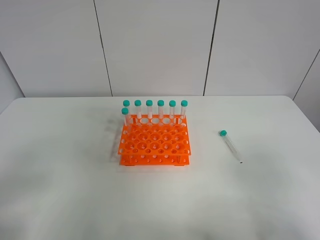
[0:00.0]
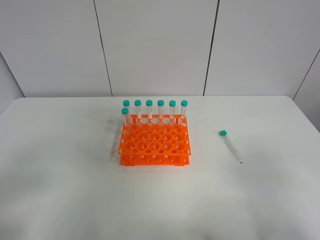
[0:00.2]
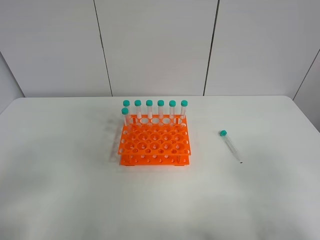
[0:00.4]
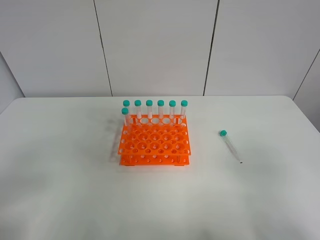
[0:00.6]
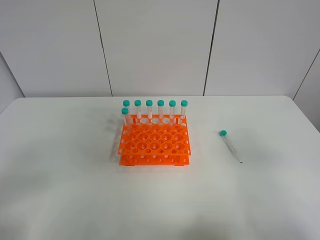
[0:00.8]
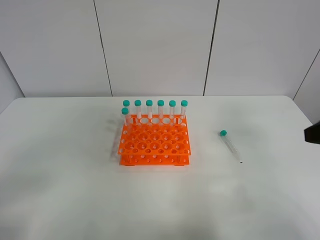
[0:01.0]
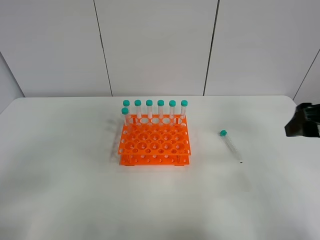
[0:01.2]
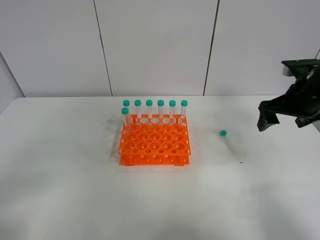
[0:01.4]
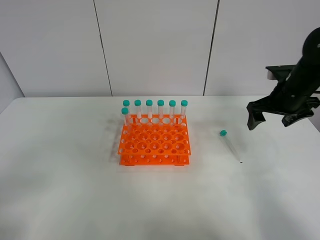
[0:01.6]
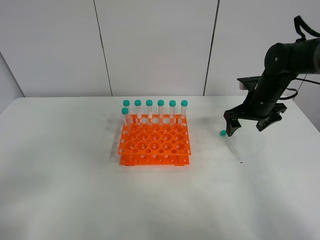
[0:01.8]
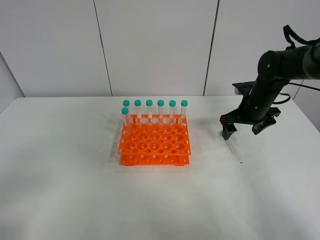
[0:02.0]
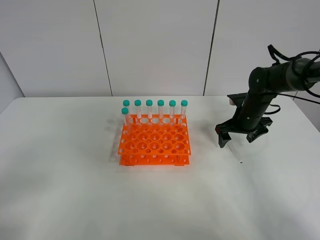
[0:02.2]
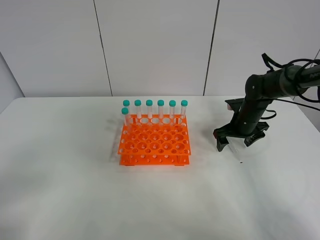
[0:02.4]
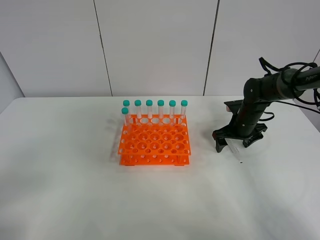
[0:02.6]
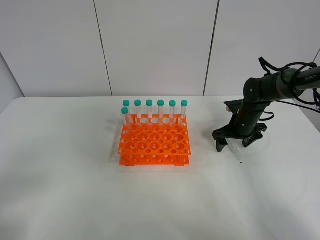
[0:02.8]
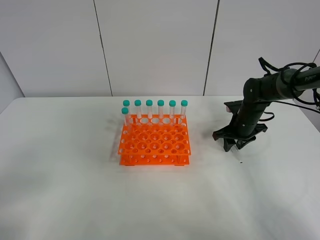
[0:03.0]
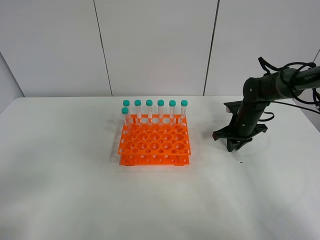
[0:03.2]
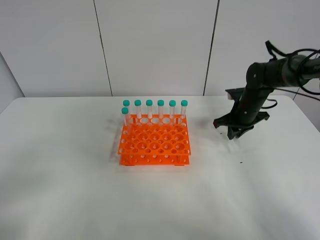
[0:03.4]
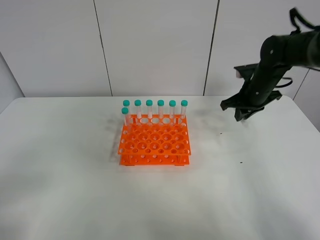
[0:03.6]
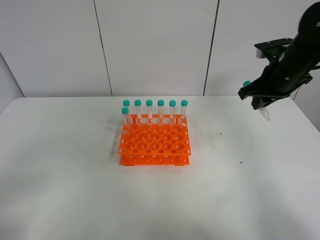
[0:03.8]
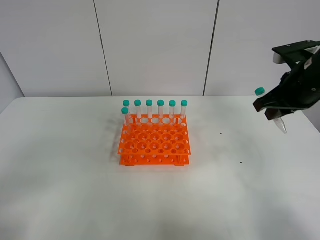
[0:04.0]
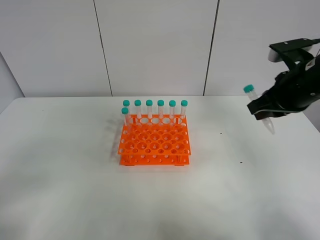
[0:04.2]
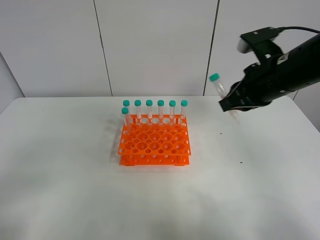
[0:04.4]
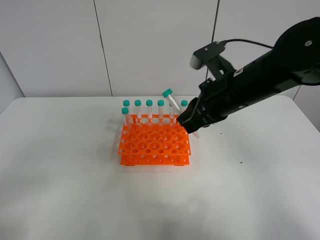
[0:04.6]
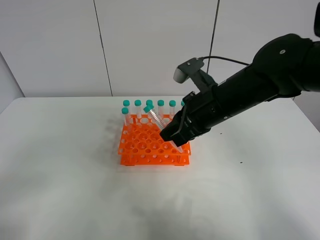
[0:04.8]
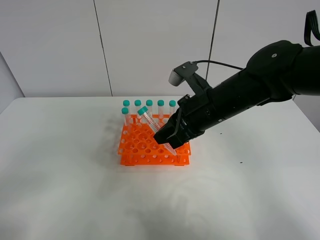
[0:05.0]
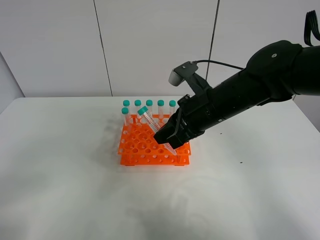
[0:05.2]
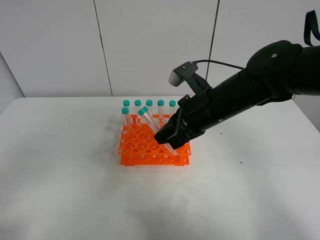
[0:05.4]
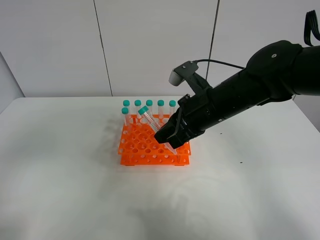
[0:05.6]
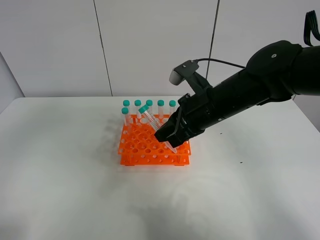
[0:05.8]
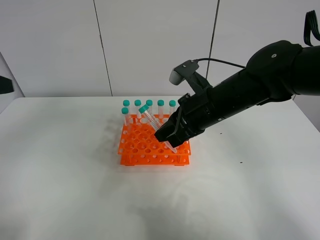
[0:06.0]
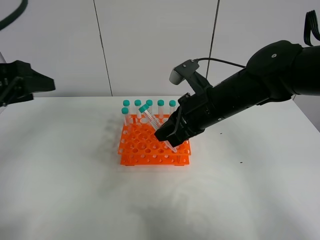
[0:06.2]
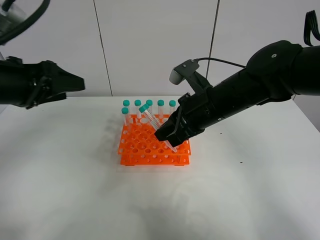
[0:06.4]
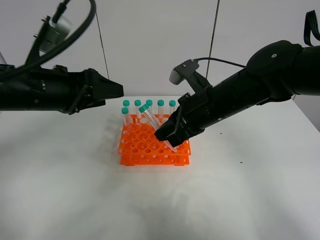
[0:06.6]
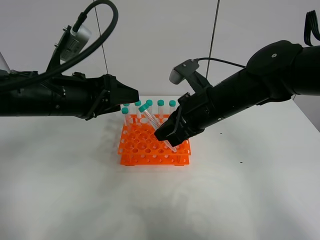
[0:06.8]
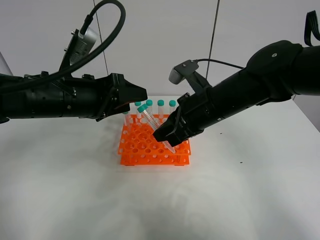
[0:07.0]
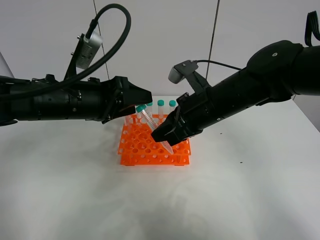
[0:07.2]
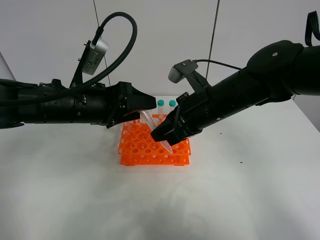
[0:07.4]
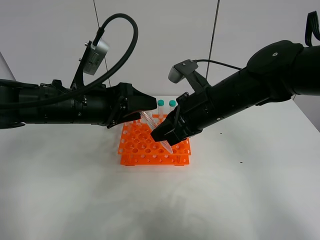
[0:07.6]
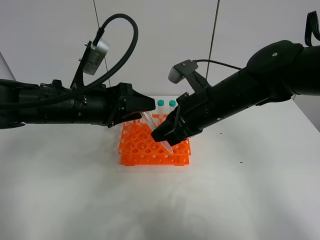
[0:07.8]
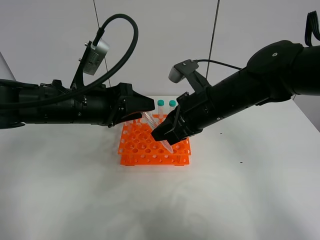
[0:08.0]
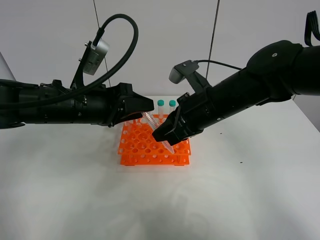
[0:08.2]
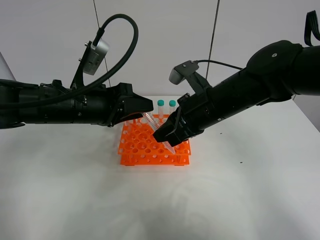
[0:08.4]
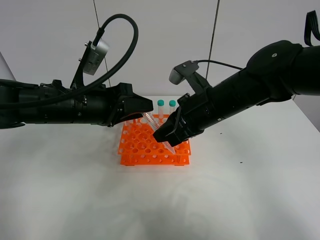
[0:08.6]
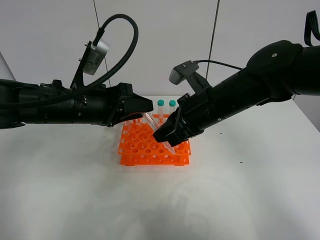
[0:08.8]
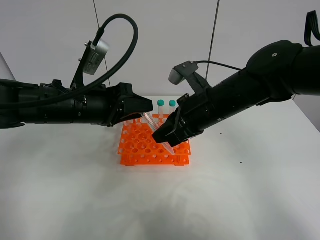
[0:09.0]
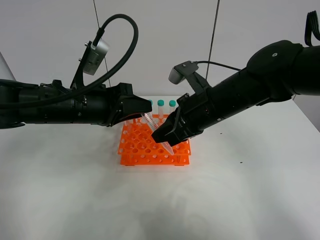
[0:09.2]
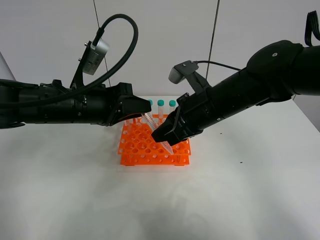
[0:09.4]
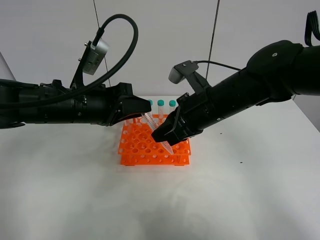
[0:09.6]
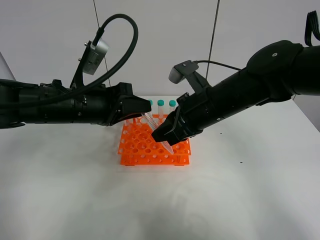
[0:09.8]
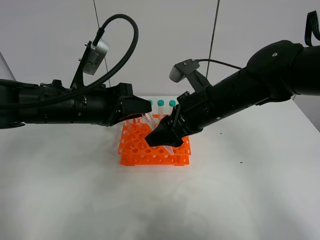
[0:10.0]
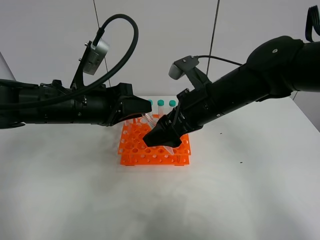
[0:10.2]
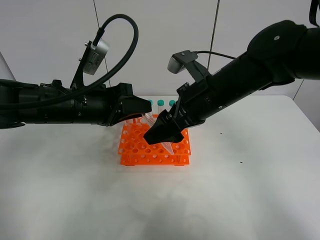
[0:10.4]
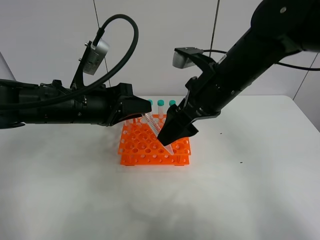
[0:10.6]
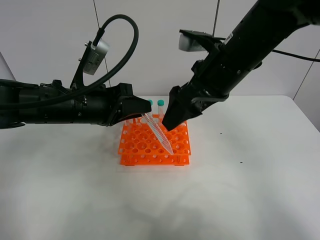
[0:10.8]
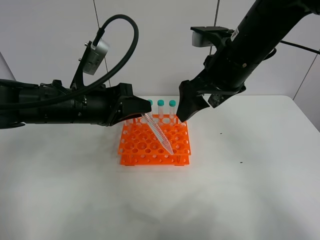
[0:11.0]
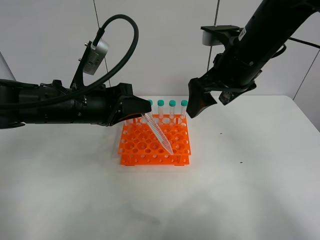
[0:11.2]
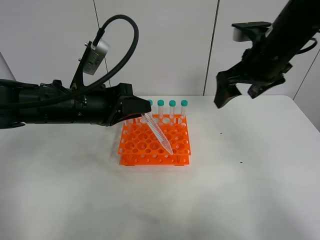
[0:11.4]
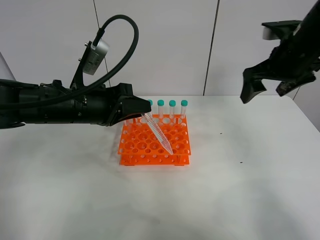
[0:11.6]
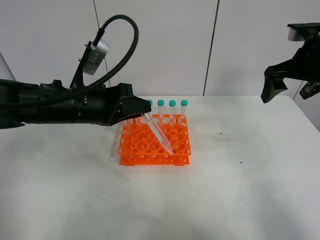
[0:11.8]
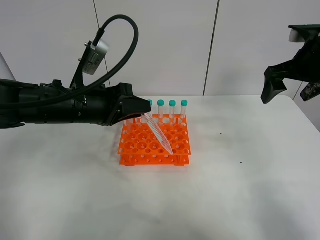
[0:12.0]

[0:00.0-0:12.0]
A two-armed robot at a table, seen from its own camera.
Task of the whole recording: Put the test tube on the table back onto the test tube rack.
Step, 0:00.0 to 0:03.2: Pick up the test tube with the right gripper.
Step, 0:03.4 to 0:10.0: Move the test tube from the right gripper to the left gripper.
0:00.0 to 0:01.6: The right gripper moves forward, roughly 35 cm.
0:01.6 to 0:03.0: The right gripper is displaced downward by about 10 cm, and closes.
0:03.0 to 0:04.4: The right gripper travels upward and backward by about 25 cm.
0:04.4 to 0:06.0: The left gripper moves forward, some 20 cm. The right gripper goes approximately 5 cm to the left.
0:06.0 to 0:07.6: The left gripper is displaced to the right, downward and forward by roughly 20 cm.
0:07.6 to 0:09.0: The left gripper closes up.
0:09.0 to 0:10.4: The right gripper opens its fingers.
0:10.4 to 0:12.0: The right gripper is displaced to the right by about 20 cm.

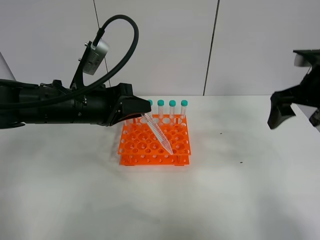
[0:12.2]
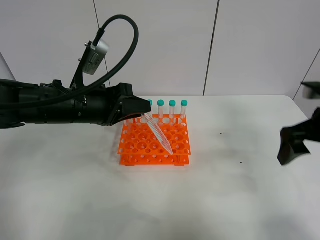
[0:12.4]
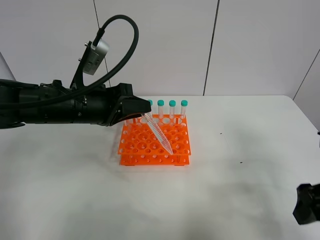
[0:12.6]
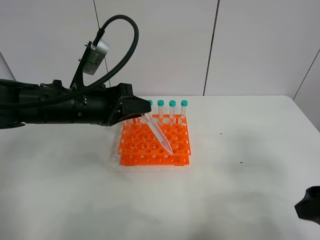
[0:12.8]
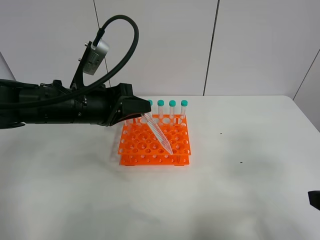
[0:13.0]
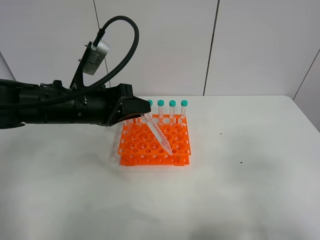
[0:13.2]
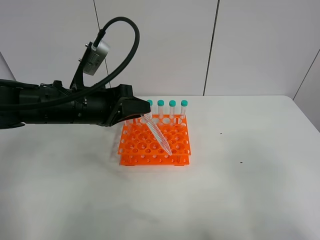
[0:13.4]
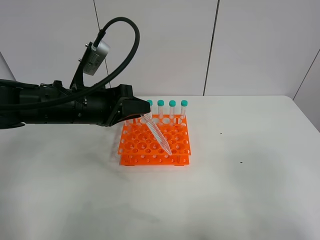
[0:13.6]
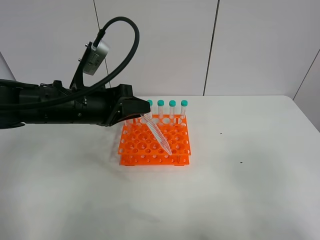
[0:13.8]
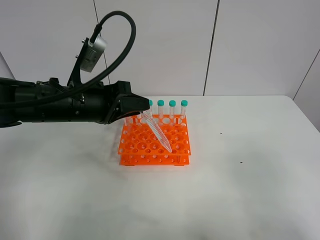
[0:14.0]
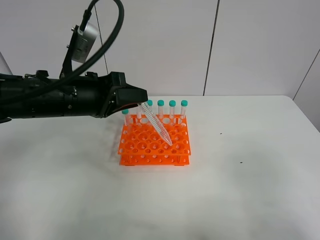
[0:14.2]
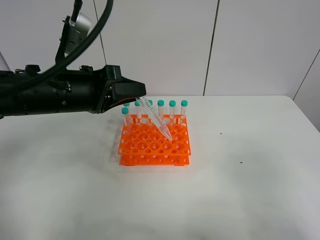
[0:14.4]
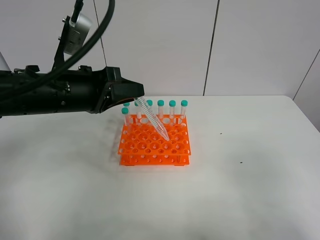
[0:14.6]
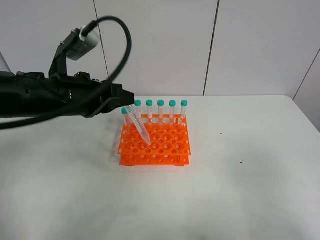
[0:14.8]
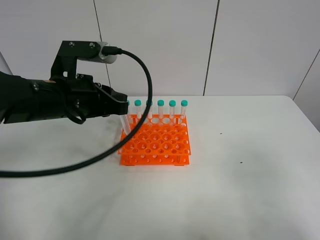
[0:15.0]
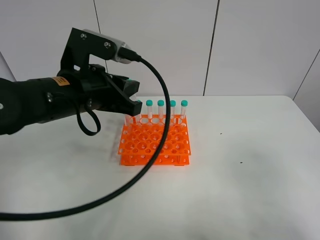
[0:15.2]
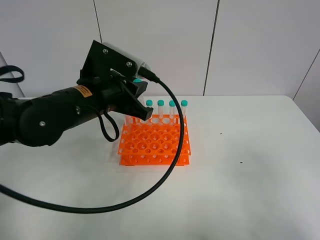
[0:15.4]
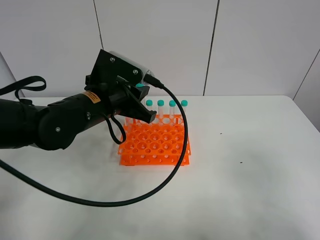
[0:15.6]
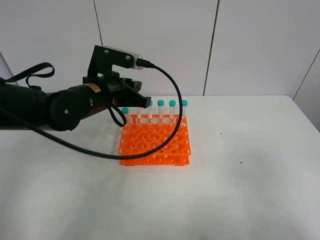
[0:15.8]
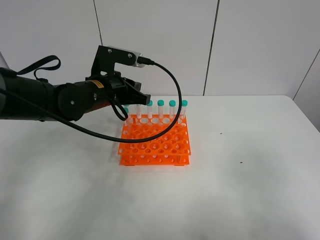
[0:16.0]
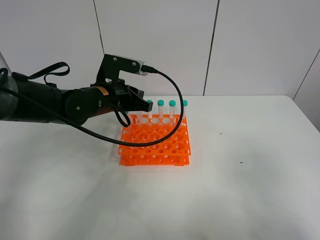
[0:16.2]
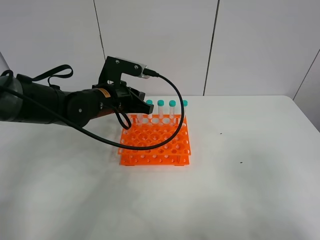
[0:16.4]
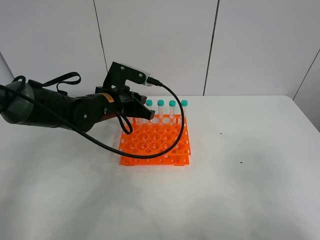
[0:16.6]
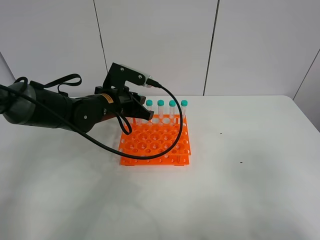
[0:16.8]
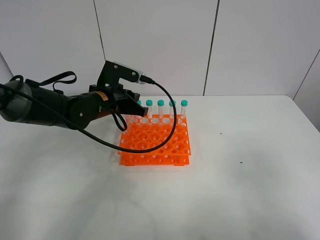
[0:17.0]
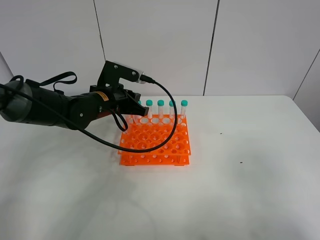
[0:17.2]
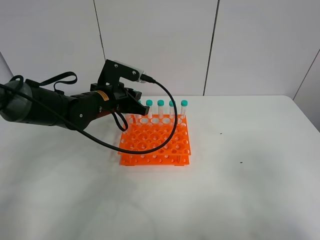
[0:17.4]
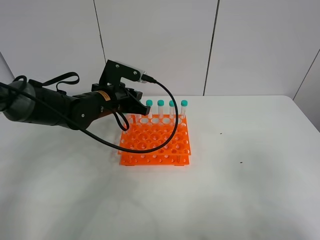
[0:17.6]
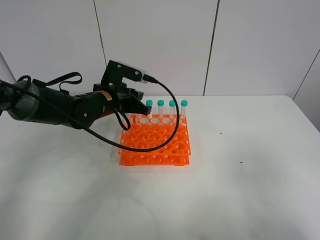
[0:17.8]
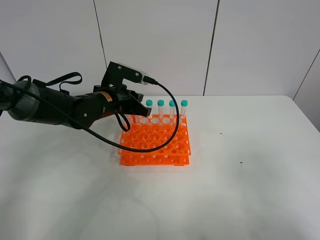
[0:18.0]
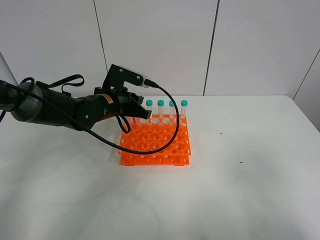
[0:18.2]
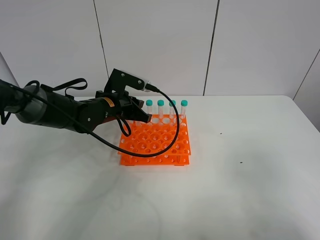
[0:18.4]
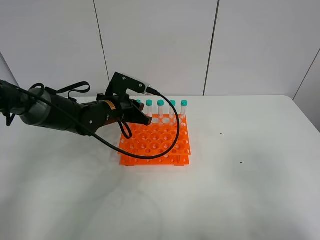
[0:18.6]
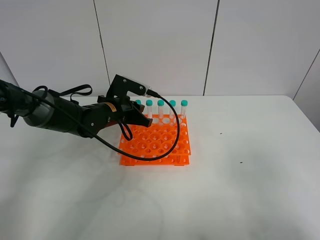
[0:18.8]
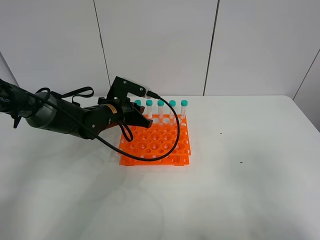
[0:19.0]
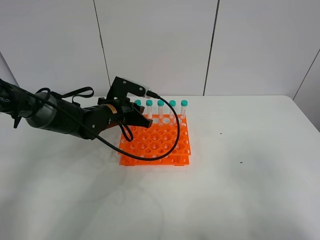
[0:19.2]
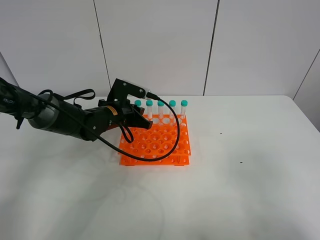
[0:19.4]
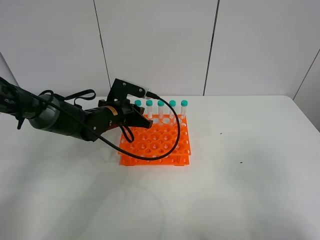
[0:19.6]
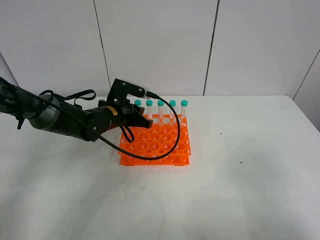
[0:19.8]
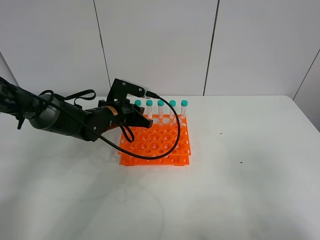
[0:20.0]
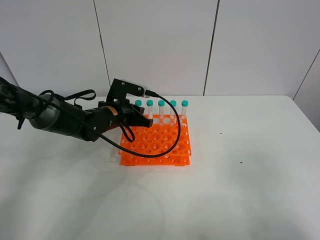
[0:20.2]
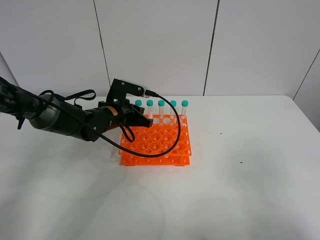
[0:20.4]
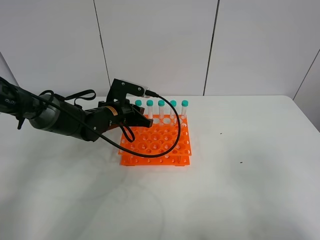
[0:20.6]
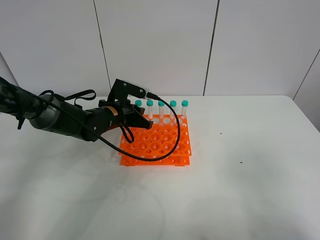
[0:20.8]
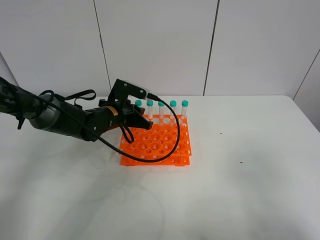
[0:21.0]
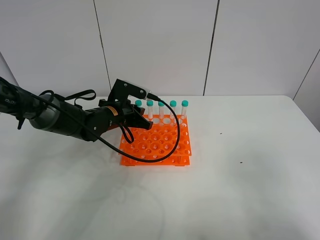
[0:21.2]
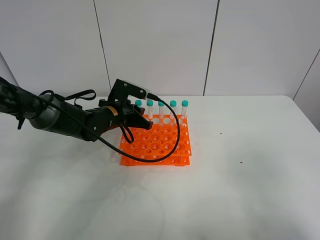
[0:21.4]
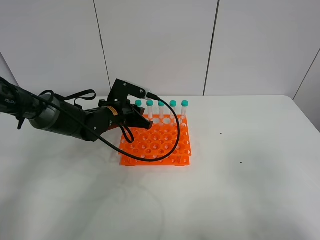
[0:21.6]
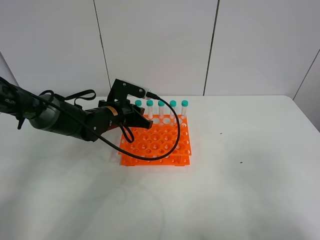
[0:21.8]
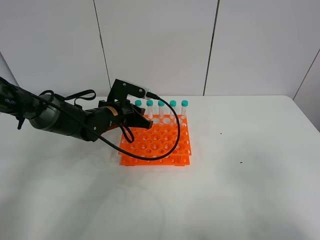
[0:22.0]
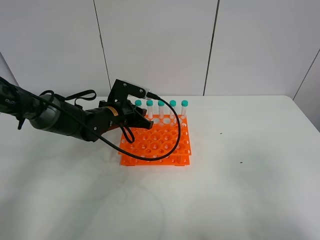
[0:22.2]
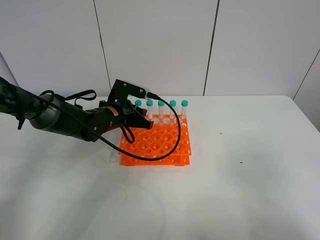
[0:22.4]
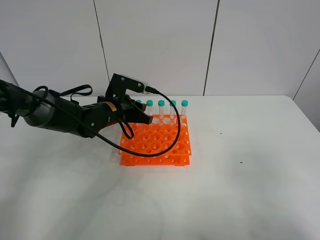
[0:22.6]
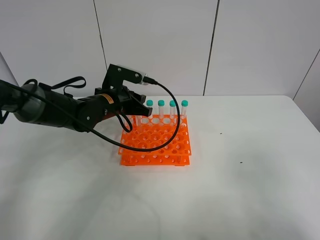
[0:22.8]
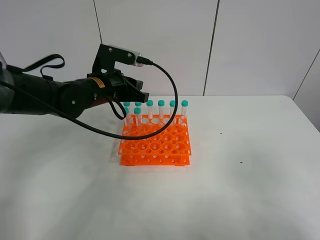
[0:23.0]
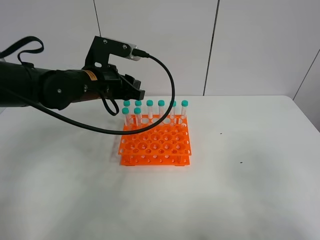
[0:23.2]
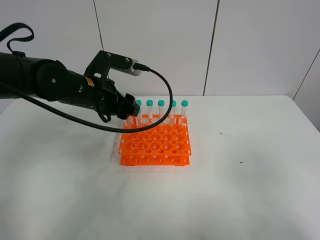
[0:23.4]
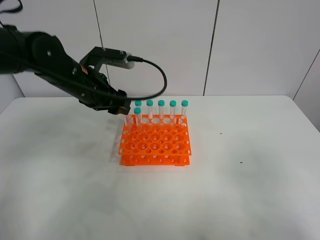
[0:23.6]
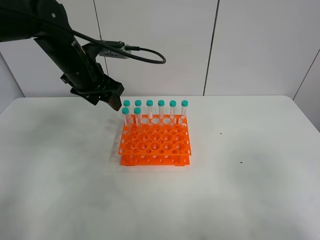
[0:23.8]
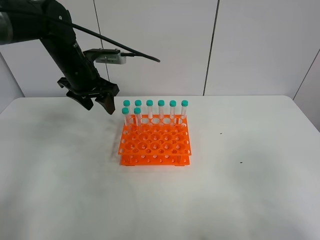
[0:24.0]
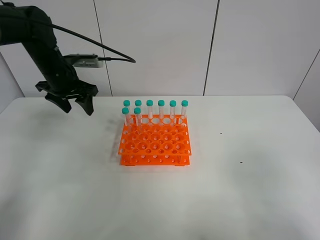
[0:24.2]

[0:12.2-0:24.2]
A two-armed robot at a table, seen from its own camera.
Task of the whole recording: Put the test tube on the table back onto the test tube rack.
Step, 0:12.2 to 0:22.0: Place the test tube on the test tube rack with the left gripper.
0:12.2 to 0:13.8: The right gripper heads backward, covering approximately 25 cm.
0:13.8 to 0:15.2: The left gripper heads upward, covering approximately 5 cm.
0:15.2 to 0:16.6: The left gripper heads forward and downward, covering about 15 cm.
0:16.6 to 0:19.8: The grippers make only small movements.
0:19.8 to 0:21.2: Both grippers stay put.
0:21.2 to 0:22.6: The left gripper opens its fingers.
0:22.6 to 0:24.2: The left gripper heads to the left, upward and forward, covering approximately 15 cm, and opens its fingers.
